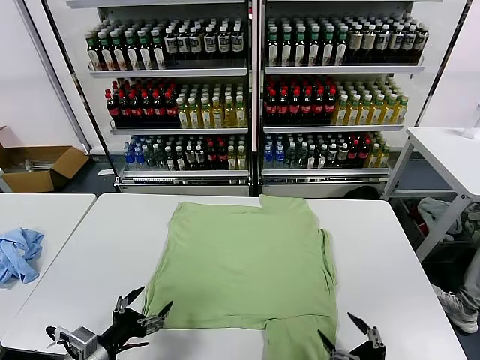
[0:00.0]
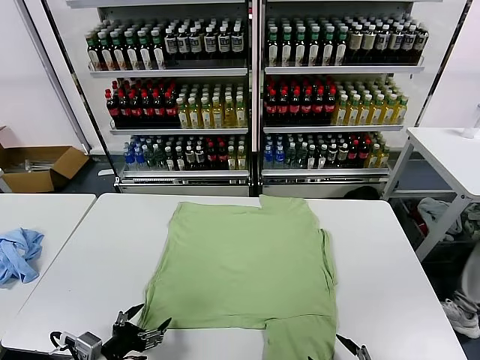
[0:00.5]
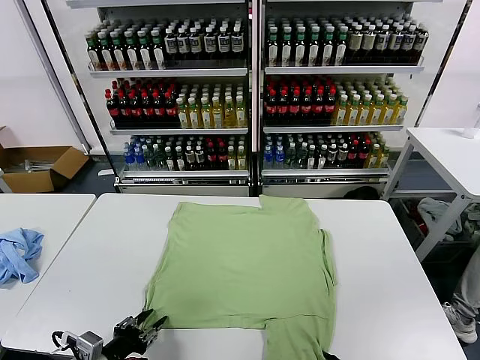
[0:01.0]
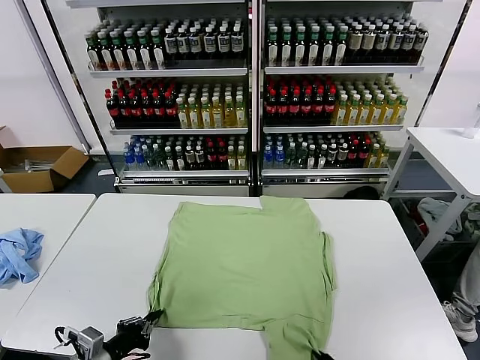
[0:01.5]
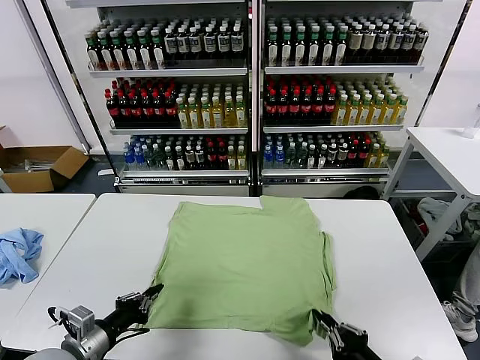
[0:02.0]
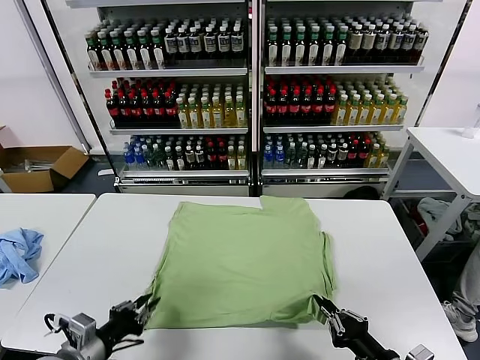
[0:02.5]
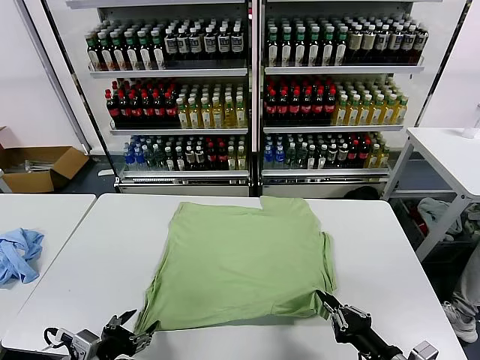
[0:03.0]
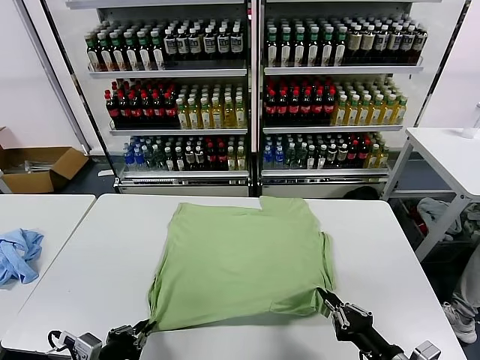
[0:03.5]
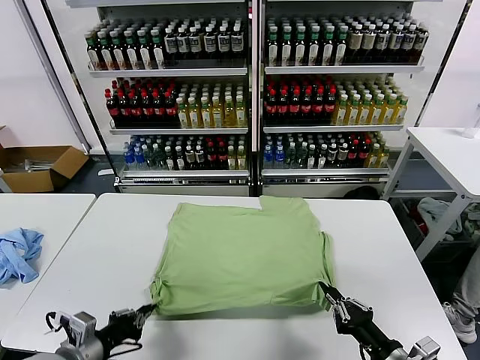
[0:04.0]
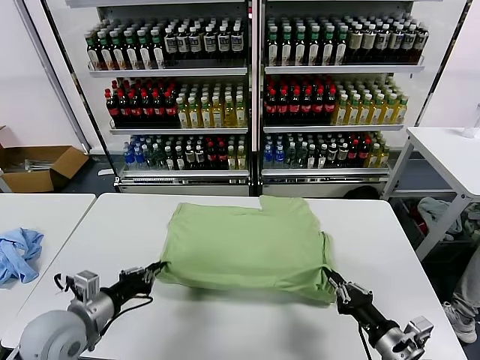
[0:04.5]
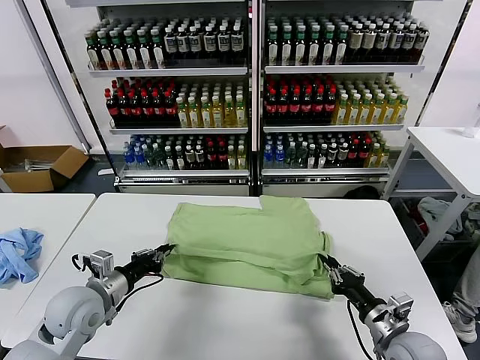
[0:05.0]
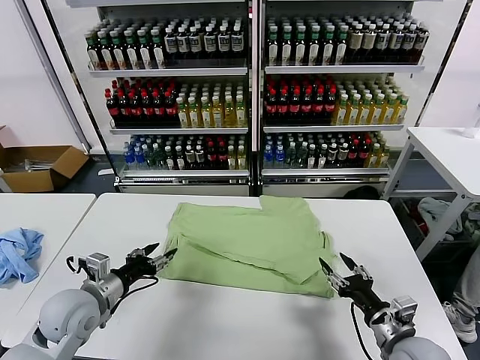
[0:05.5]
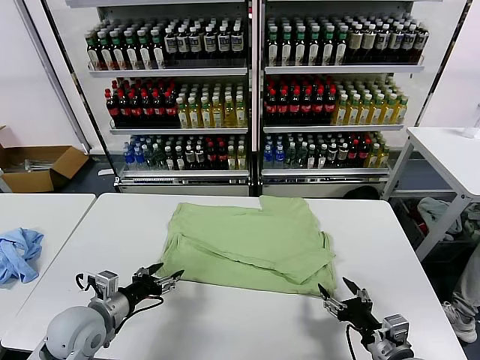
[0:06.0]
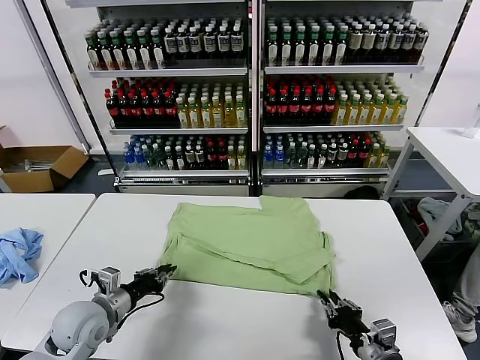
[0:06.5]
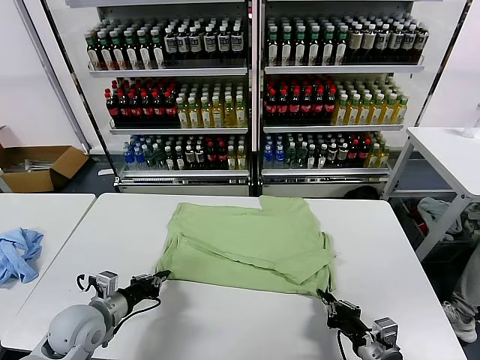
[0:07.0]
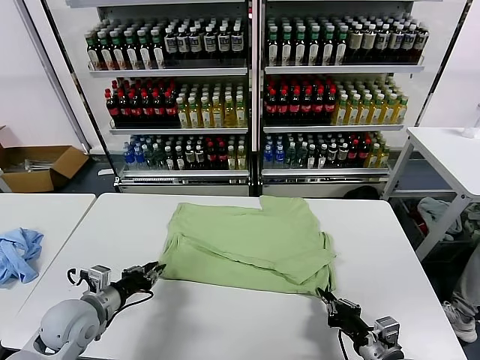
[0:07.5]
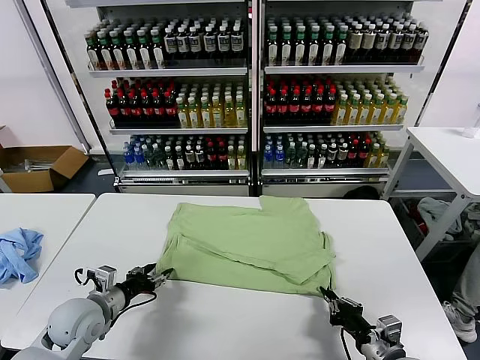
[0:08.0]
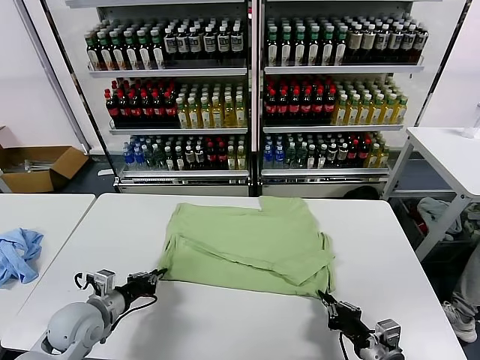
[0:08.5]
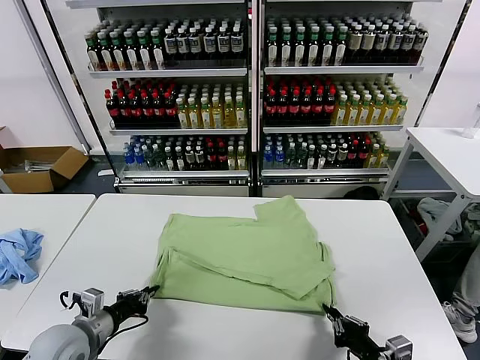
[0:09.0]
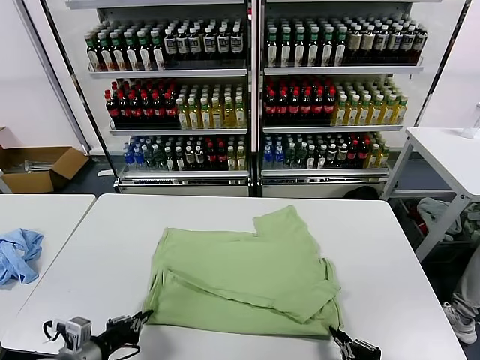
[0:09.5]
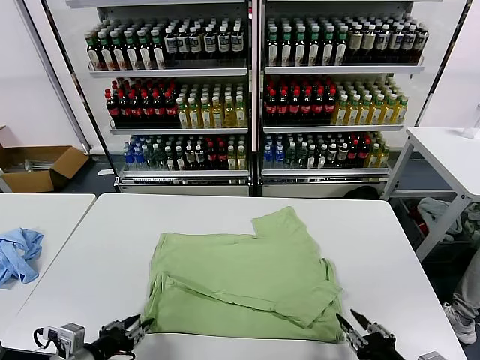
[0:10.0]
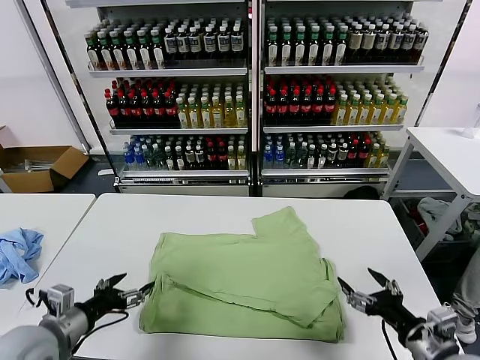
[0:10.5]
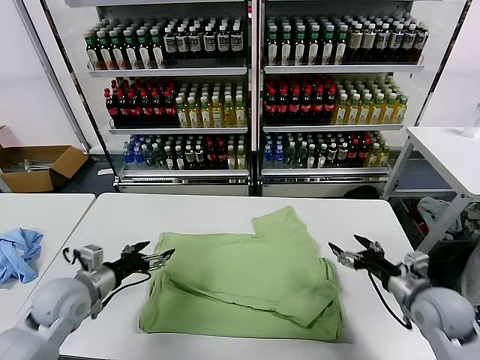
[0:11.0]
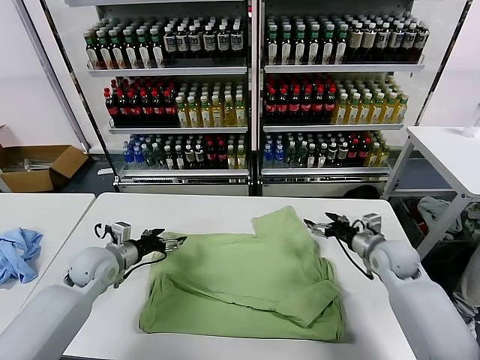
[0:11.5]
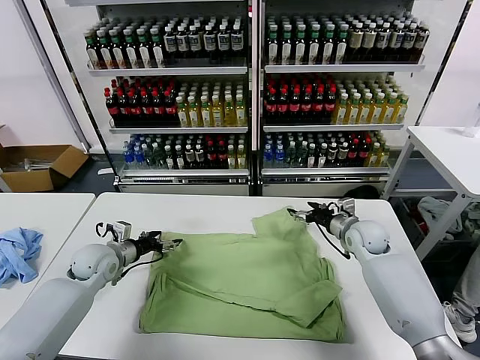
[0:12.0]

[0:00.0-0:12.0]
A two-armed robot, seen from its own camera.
Task of the whole recording: fold and organize the clothes.
Step, 0:00.0 to 0:01.0: use both grippers simultaneously to clamp the lower edge of the clothing fabric.
Step, 0:01.5 to 0:05.0: use both grippers to drag the lower edge of the fabric forward and fold it over the upper edge.
Step, 0:05.5 to 0:09.5: Drag the clothes downward with both gripper.
0:02.0 to 0:04.0: The left gripper opens, then closes once more.
0:04.0 to 0:06.0: The left gripper travels forward by about 10 cm, and opens its fingers. The right gripper opens up.
0:06.0 to 0:08.0: The left gripper closes, then opens again, while the right gripper closes up.
0:08.0 to 0:10.0: The left gripper travels backward by about 15 cm, and closes, then opens again, while the right gripper heads backward and upward, covering some 10 cm, and opens its fingers.
0:10.0 to 0:12.0: Both grippers move forward, approximately 35 cm. The left gripper opens.

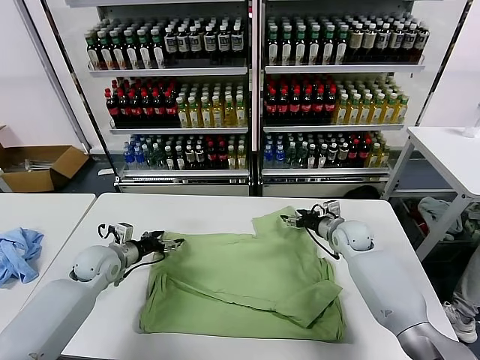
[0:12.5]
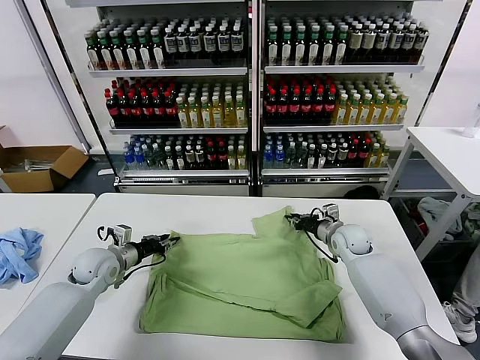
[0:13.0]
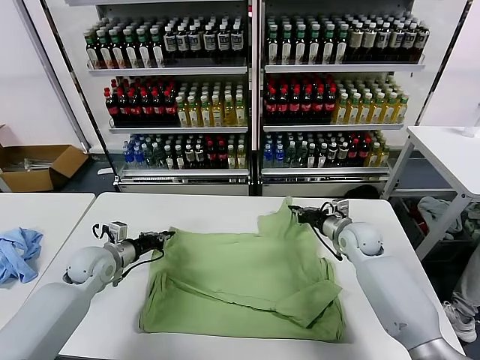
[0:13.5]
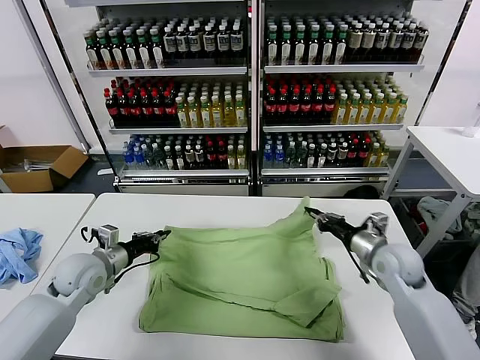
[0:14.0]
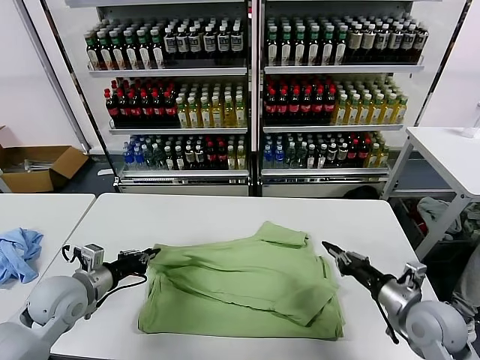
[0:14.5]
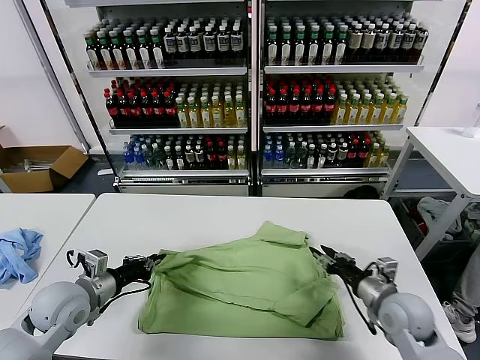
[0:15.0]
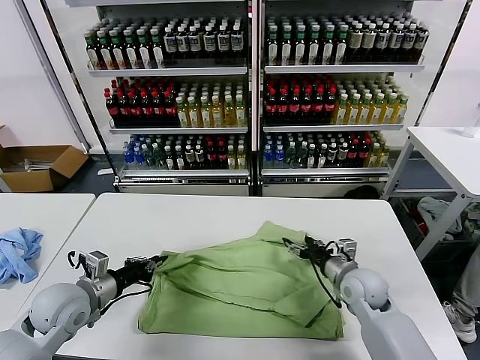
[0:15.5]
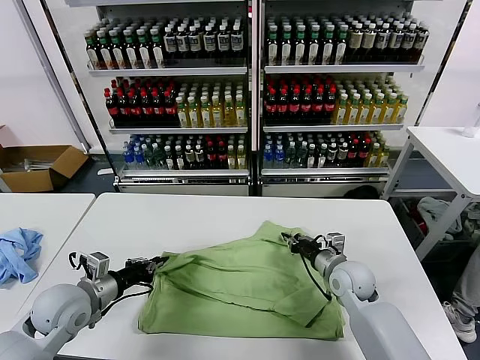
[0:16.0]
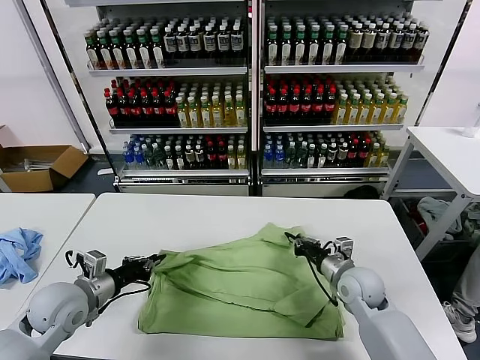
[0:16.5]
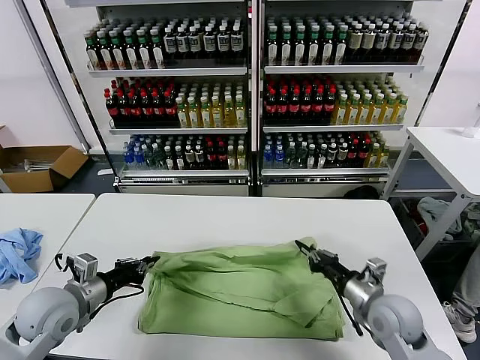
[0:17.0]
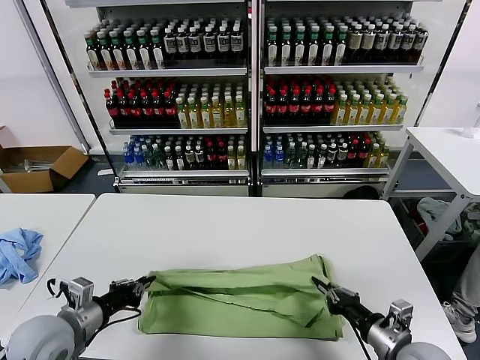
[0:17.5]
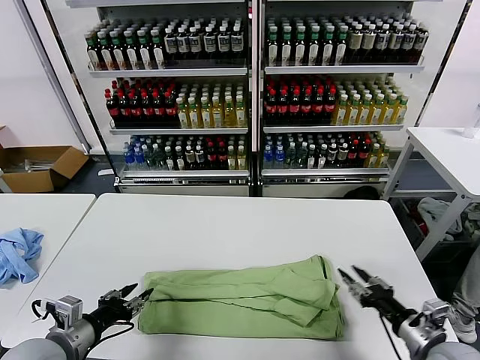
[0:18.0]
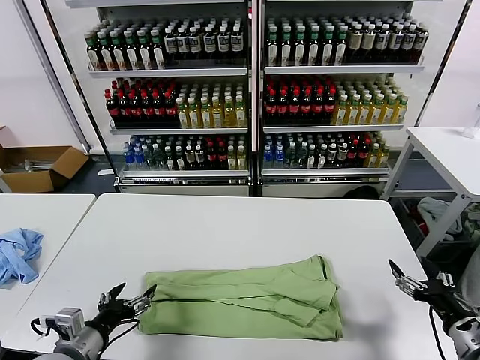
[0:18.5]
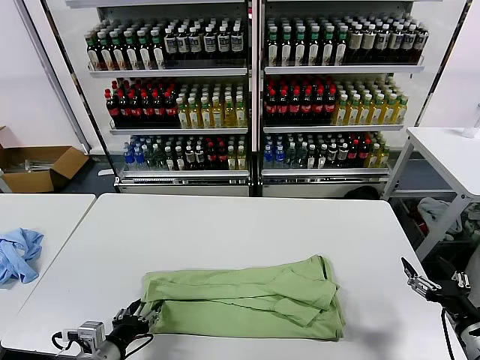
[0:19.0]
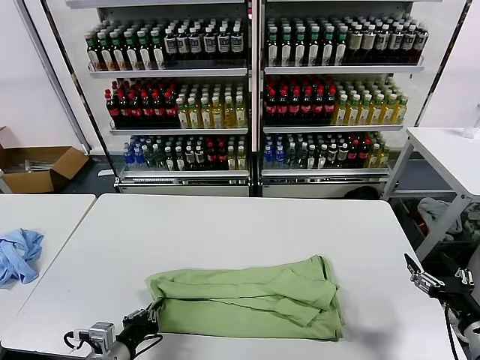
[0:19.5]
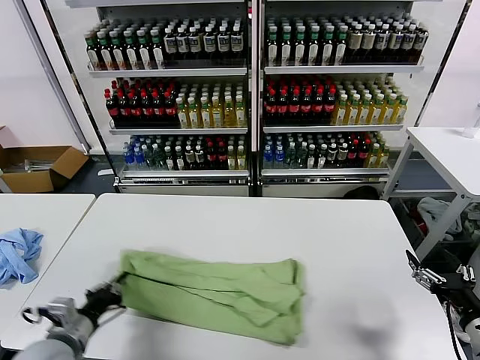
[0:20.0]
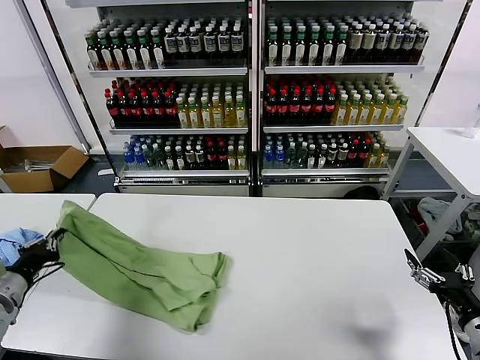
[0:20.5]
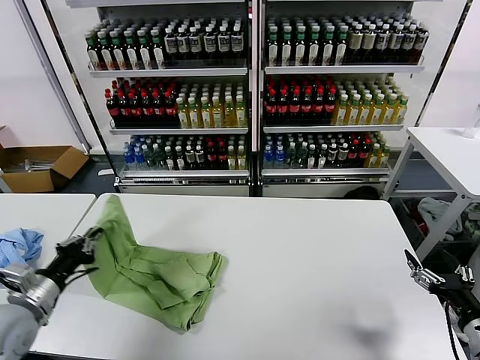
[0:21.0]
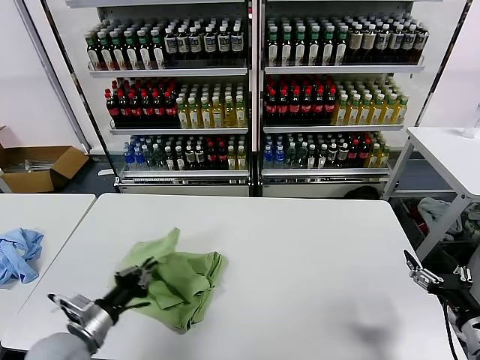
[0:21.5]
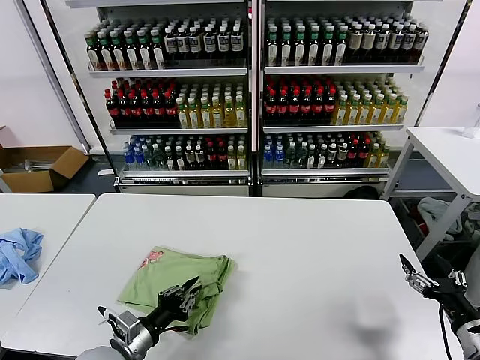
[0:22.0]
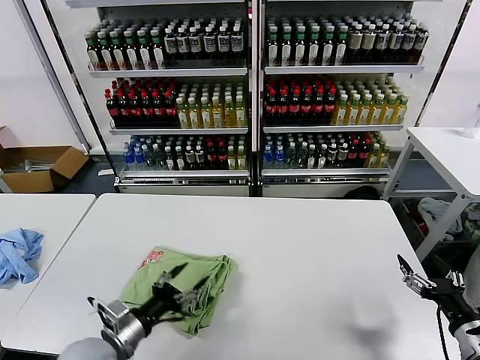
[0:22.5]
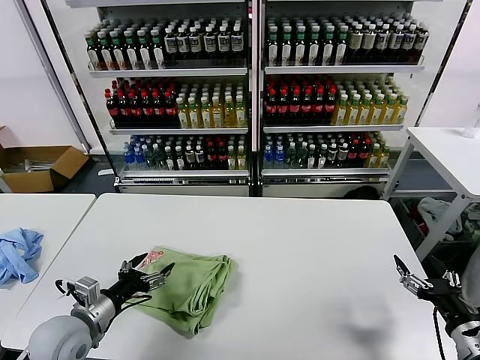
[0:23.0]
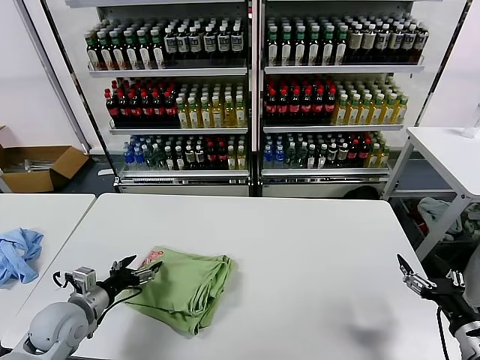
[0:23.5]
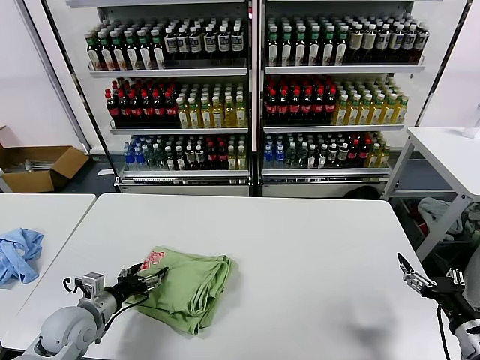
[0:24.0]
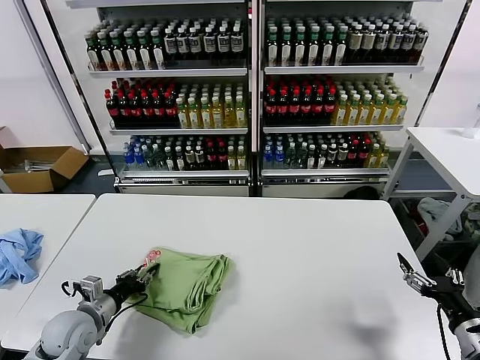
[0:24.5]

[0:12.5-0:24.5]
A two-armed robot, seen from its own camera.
Task of the whole recording: fold and organize the clothes.
Step, 0:13.5 to 0:17.5: use both grippers to drag the upper edge of the fabric backward and fold it over the lower edge.
Step, 0:18.5 to 0:19.5: use the left gripper to clamp the left edge of the fabric.
Step, 0:20.0 to 0:22.0: use the left gripper to drag the left edge of the fabric to the left and folds it over the right edge.
0:12.5 to 0:14.5: The left gripper is displaced backward and upward by about 15 cm, and closes. The right gripper travels backward by roughly 25 cm, and closes its fingers.
0:14.5 to 0:16.5: The right gripper moves forward, to the left and downward, roughly 15 cm, and opens, then closes once more.
0:16.5 to 0:18.5: The right gripper is displaced backward and to the right by approximately 25 cm, and opens. The left gripper travels backward by some 10 cm, and opens up.
0:18.5 to 0:20.5: The left gripper goes some 15 cm to the left and forward, and closes its fingers.
0:20.5 to 0:22.5: The left gripper goes roughly 20 cm to the right, and opens its fingers.
0:22.5 to 0:24.5: The left gripper travels to the left and forward by about 10 cm, and closes up.

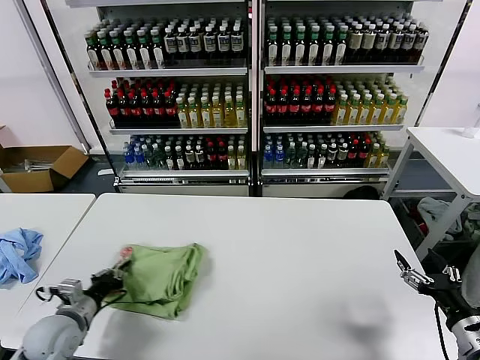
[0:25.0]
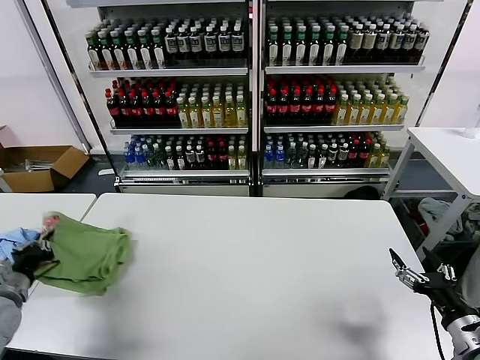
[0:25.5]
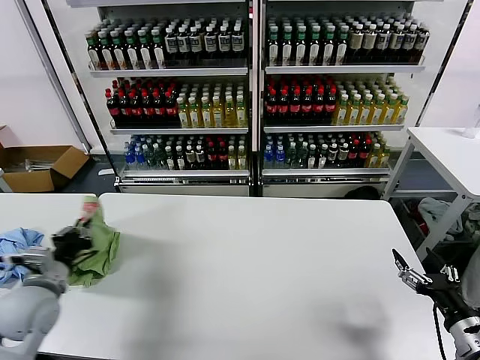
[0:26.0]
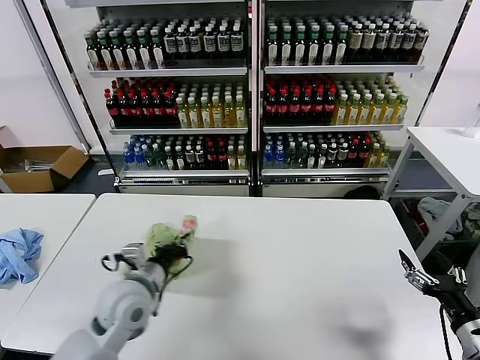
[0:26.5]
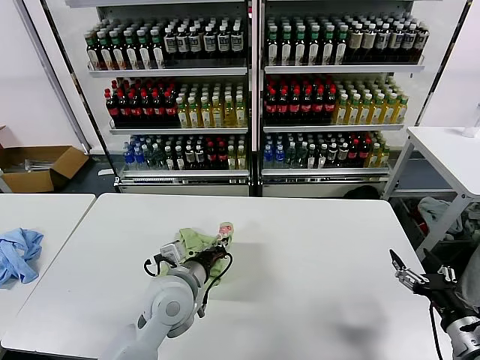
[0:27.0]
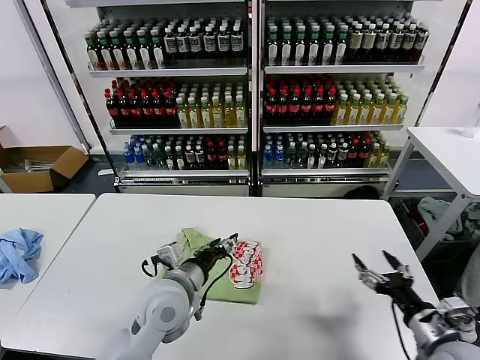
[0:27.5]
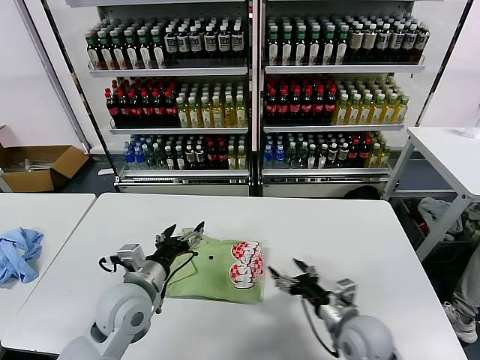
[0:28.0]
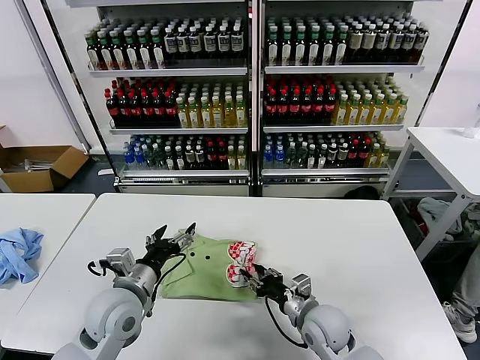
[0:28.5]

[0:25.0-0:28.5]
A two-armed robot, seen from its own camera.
Task of the whole recording: fold and organize the clothes.
Step, 0:25.0 to 0:27.0: Flip the folded clothes over with left gripper.
0:25.0 to 0:27.0: The left gripper goes about 25 cm to the right.
0:27.0 to 0:28.5: The left gripper heads to the left, covering approximately 10 cm, and opens. The right gripper is displaced to the left, forward and downward by approximately 30 cm, and closes up.
